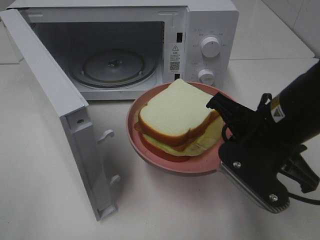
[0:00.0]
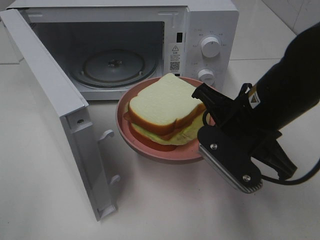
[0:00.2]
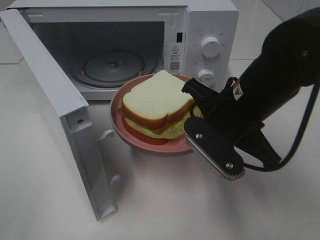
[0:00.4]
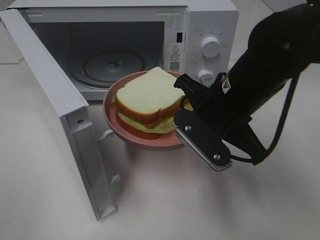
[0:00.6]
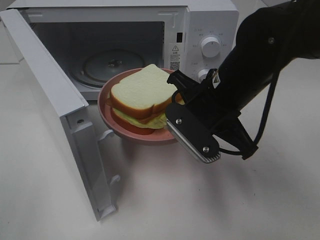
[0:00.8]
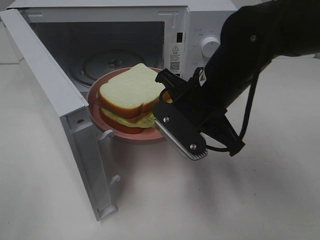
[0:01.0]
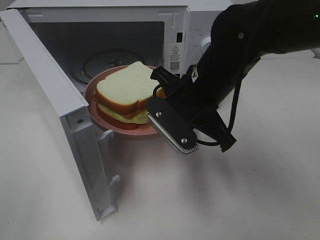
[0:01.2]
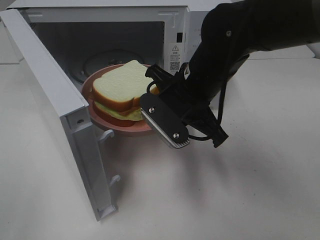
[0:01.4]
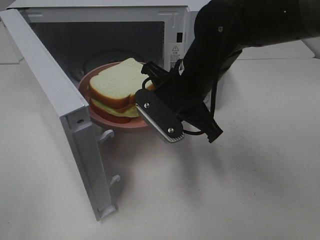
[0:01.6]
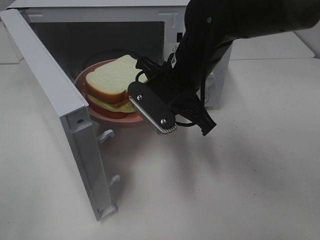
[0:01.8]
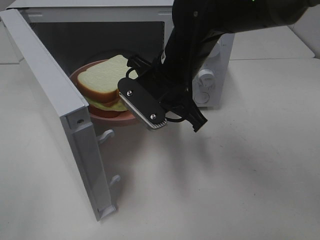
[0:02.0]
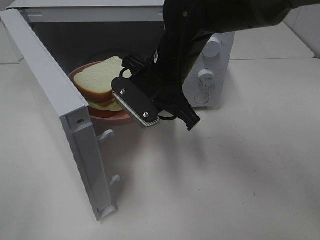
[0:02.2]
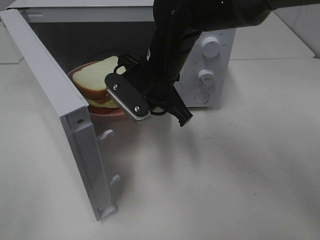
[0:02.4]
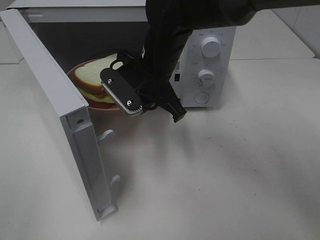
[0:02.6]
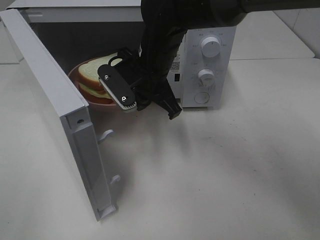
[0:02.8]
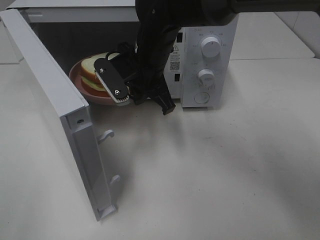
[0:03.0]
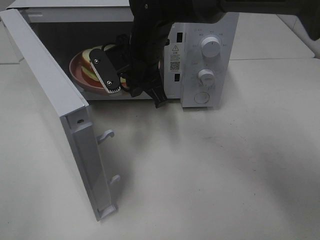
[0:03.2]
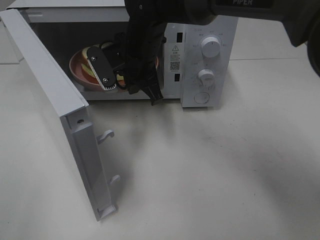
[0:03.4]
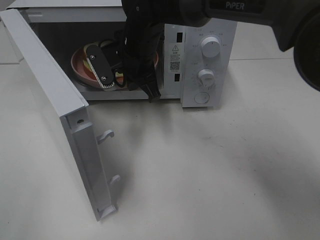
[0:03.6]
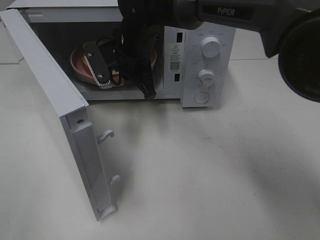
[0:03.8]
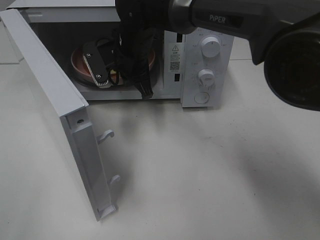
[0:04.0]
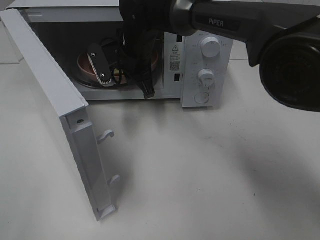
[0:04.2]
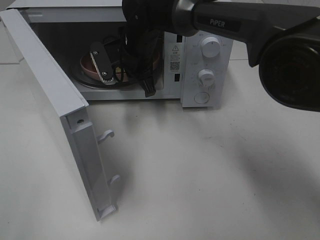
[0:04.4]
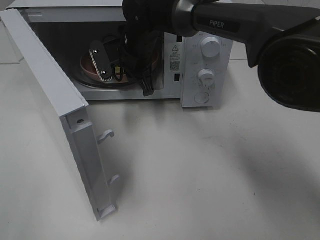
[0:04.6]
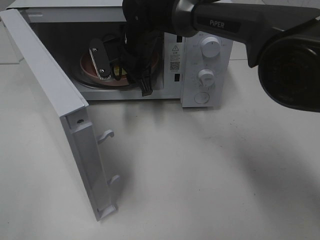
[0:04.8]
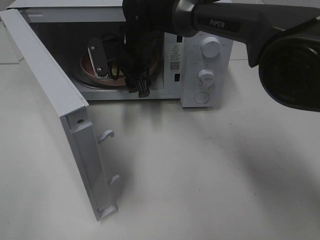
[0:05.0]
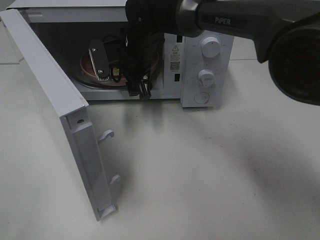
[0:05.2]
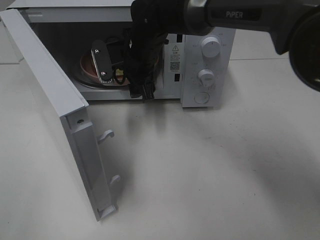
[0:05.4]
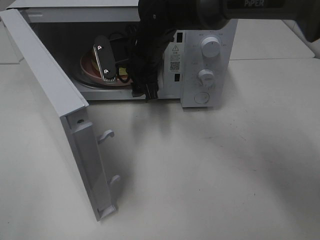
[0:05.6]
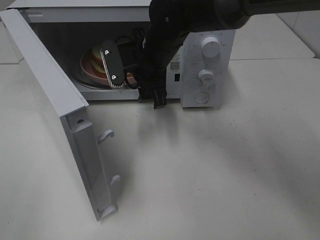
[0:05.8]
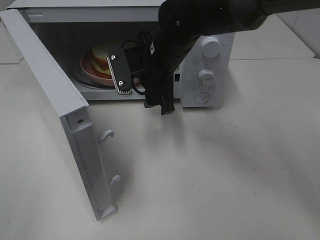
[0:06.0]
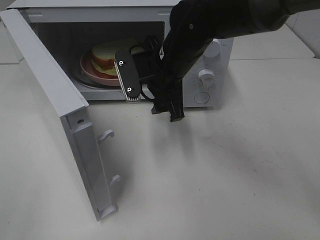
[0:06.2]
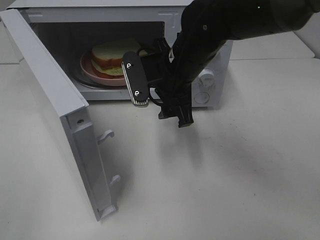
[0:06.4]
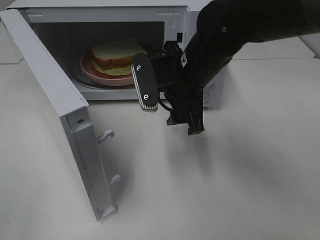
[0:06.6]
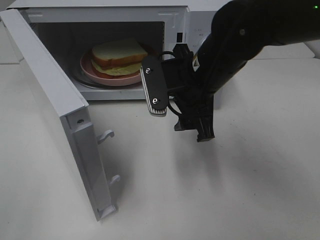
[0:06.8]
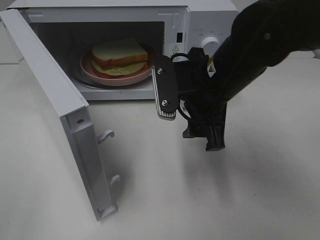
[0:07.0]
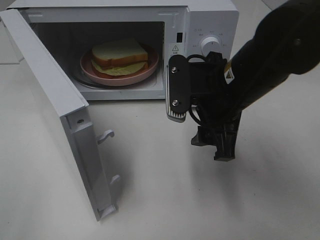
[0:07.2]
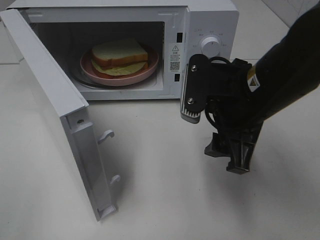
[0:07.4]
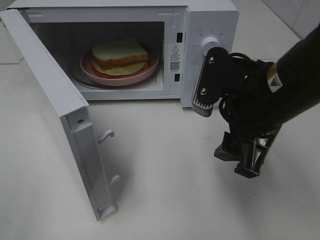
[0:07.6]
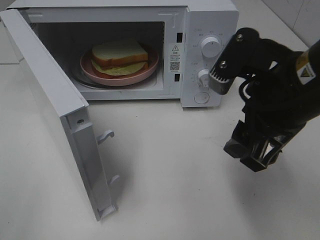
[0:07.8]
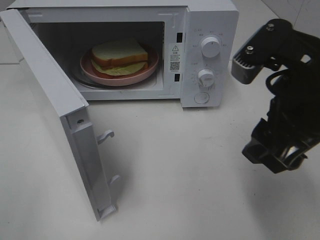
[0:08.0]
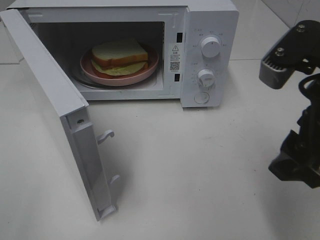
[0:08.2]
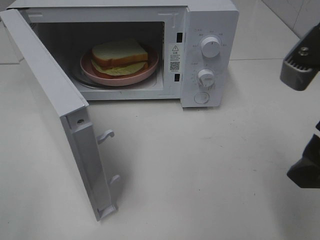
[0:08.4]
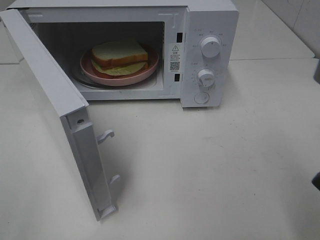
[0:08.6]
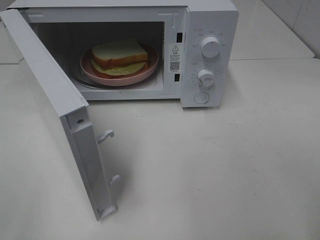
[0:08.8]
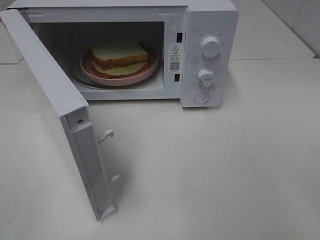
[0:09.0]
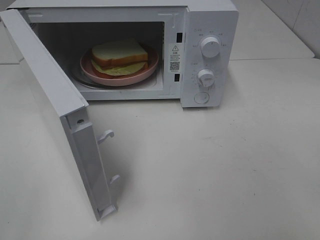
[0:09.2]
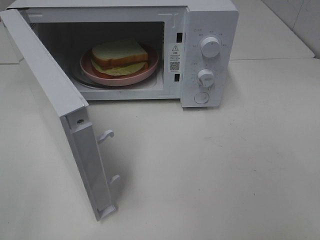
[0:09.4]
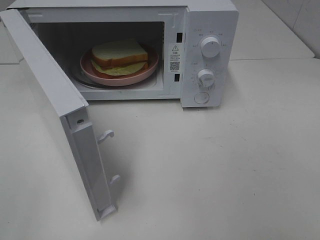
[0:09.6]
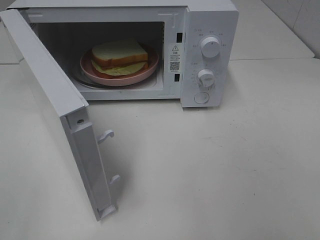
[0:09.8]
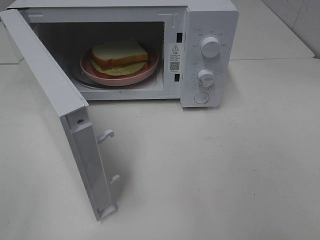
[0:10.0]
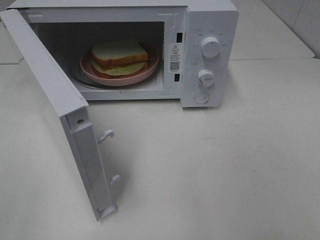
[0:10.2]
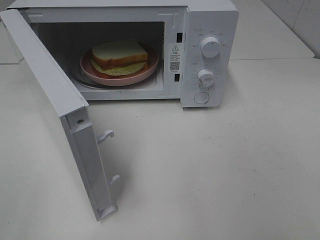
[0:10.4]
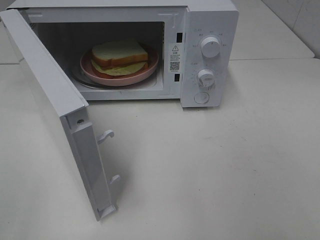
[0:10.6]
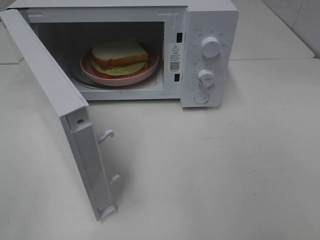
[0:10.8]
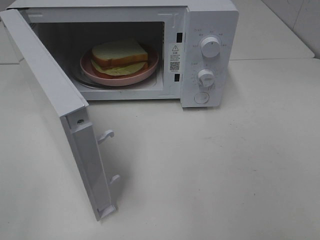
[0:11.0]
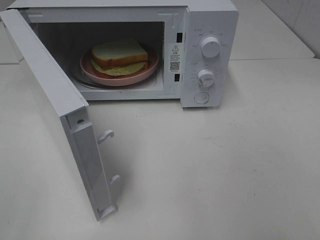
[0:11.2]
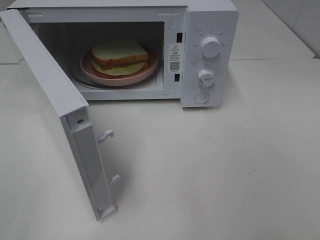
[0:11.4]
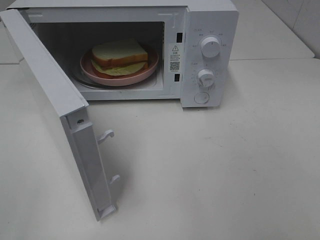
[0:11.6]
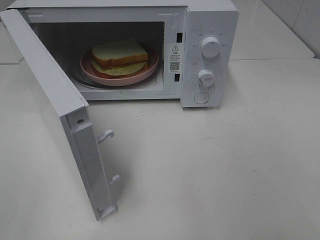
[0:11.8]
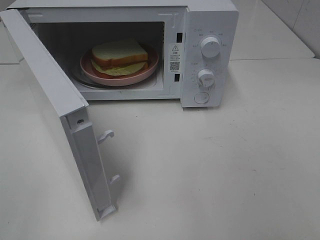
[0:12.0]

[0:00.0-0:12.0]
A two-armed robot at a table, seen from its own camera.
Task of the whole recording: Heat Sandwich.
Step, 0:00.0 to 0:06.0: Right hand: place the plate in the microwave.
0:00.0 to 0:01.6: The right gripper shifts some 15 cm forward and to the left.
0:01.6 to 0:03.0: The right gripper goes some 10 cm forward and to the left.
0:03.0 to 0:04.4: The right gripper travels forward by some 5 cm.
0:04.4 to 0:06.0: The right gripper moves backward, approximately 5 cm, and opens.
0:06.0 to 0:07.6: The right gripper heads backward and to the right, covering about 20 cm.
0:07.6 to 0:09.0: The right gripper goes about 20 cm backward and to the right.
0:10.4 to 0:12.0: Both grippers stay about where they are.

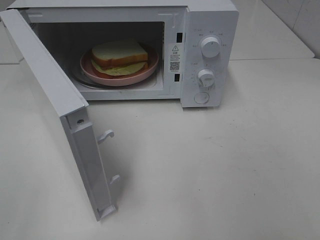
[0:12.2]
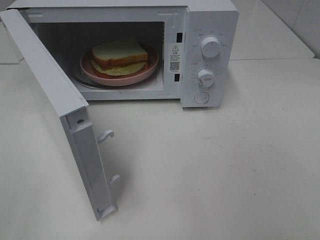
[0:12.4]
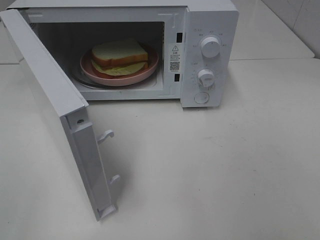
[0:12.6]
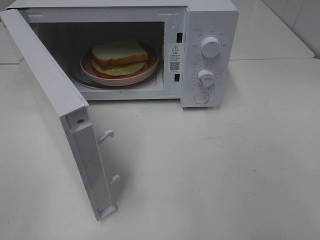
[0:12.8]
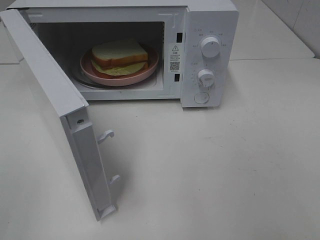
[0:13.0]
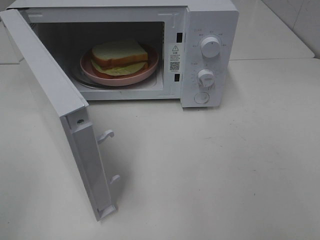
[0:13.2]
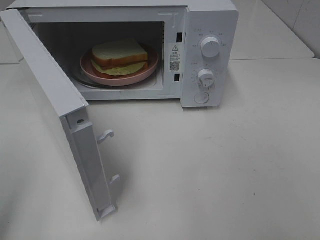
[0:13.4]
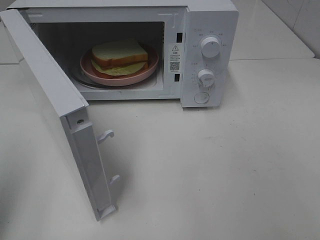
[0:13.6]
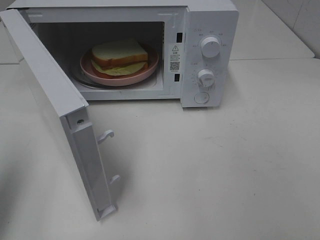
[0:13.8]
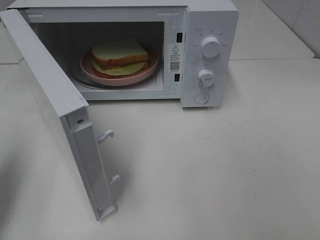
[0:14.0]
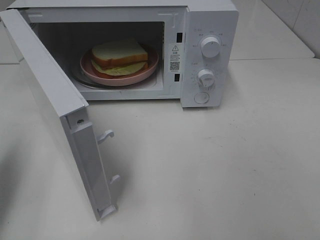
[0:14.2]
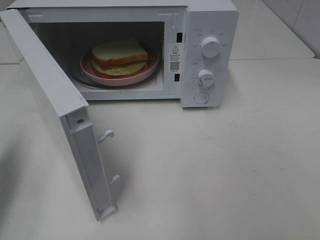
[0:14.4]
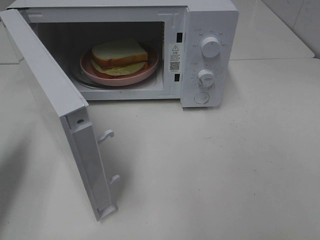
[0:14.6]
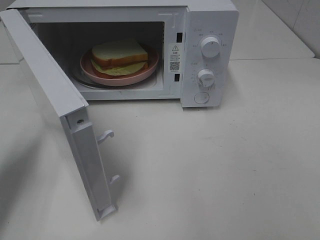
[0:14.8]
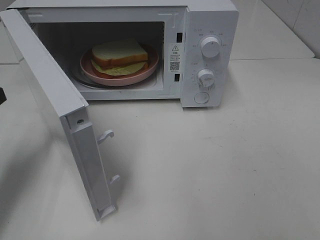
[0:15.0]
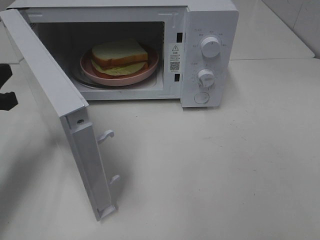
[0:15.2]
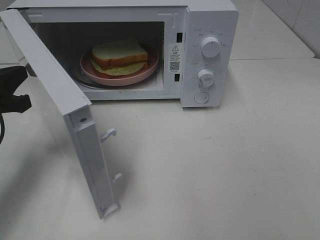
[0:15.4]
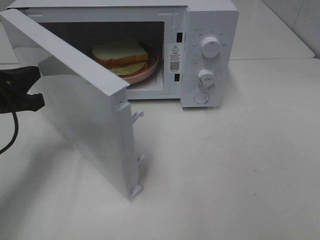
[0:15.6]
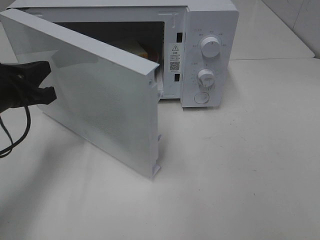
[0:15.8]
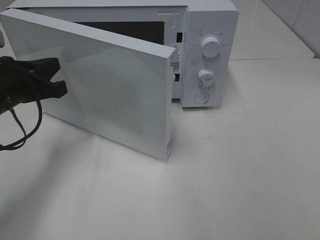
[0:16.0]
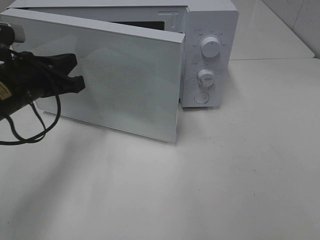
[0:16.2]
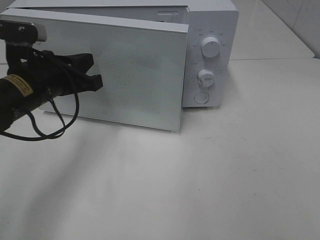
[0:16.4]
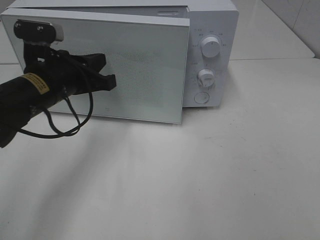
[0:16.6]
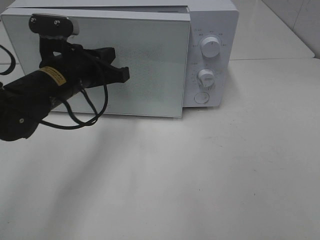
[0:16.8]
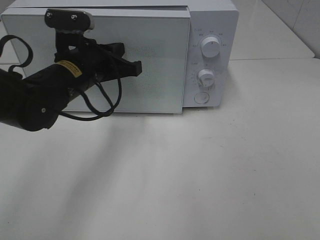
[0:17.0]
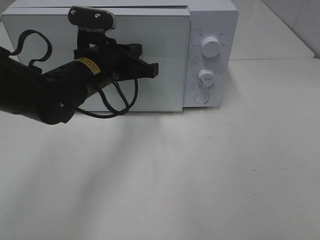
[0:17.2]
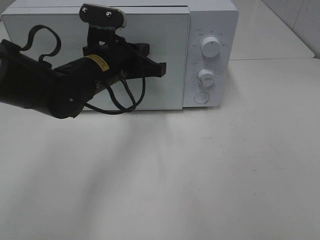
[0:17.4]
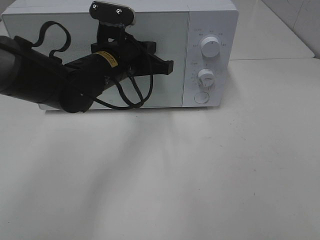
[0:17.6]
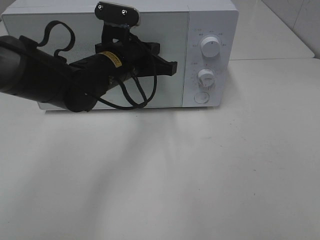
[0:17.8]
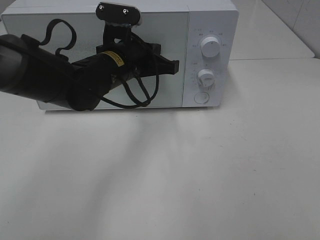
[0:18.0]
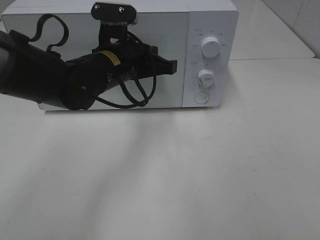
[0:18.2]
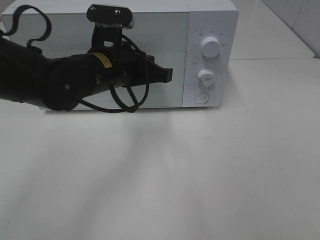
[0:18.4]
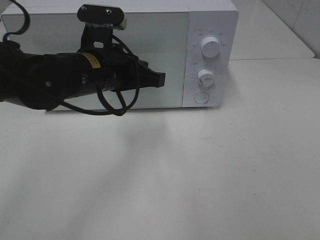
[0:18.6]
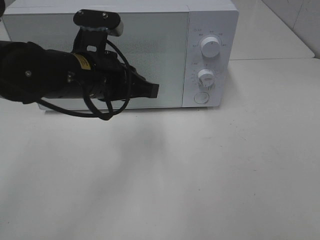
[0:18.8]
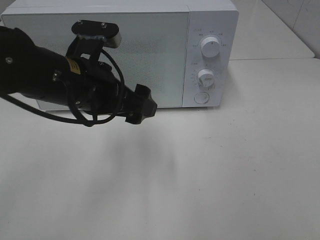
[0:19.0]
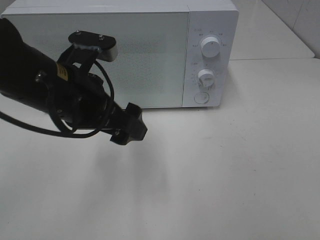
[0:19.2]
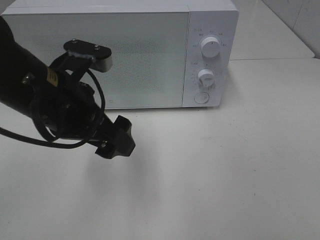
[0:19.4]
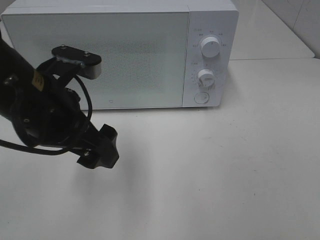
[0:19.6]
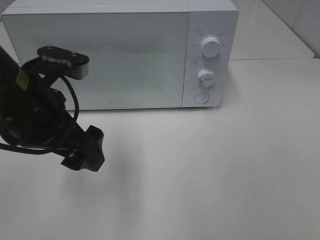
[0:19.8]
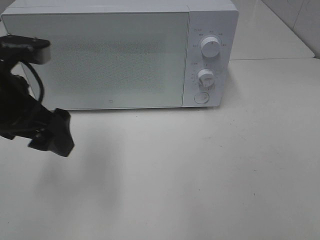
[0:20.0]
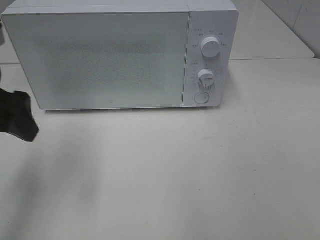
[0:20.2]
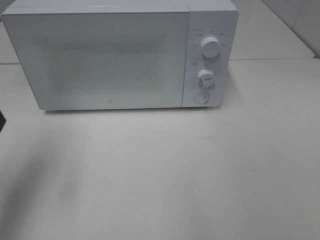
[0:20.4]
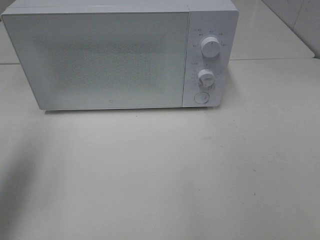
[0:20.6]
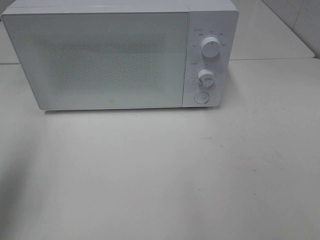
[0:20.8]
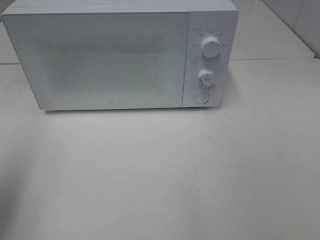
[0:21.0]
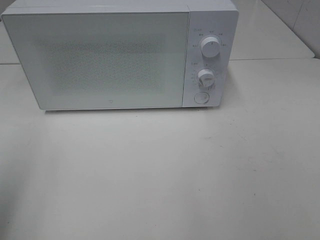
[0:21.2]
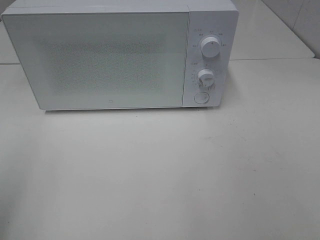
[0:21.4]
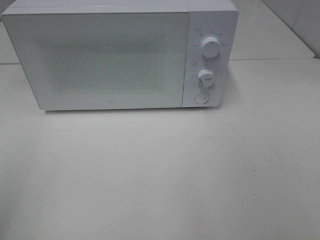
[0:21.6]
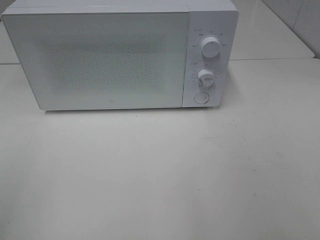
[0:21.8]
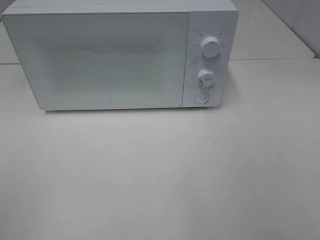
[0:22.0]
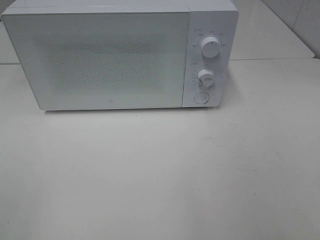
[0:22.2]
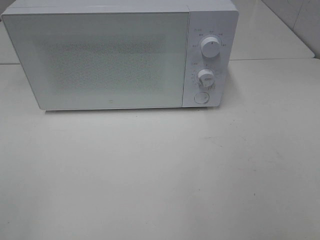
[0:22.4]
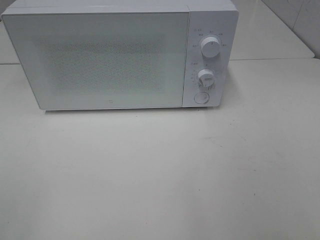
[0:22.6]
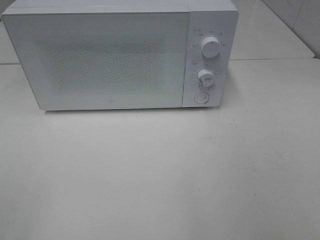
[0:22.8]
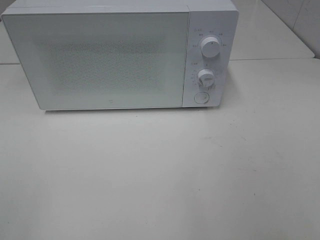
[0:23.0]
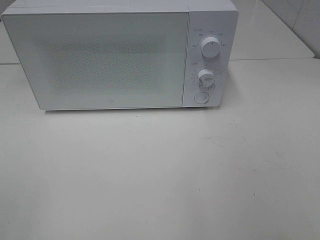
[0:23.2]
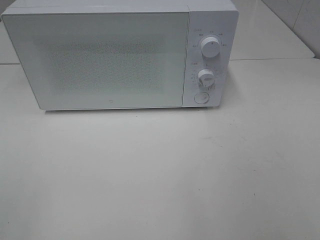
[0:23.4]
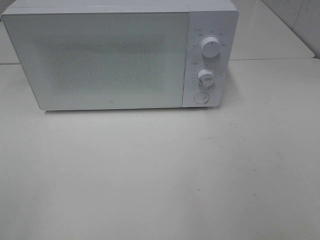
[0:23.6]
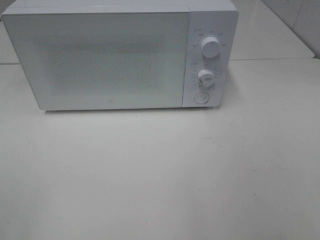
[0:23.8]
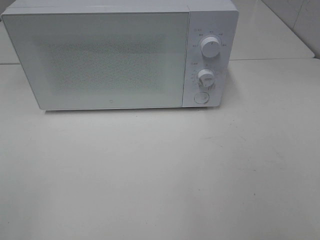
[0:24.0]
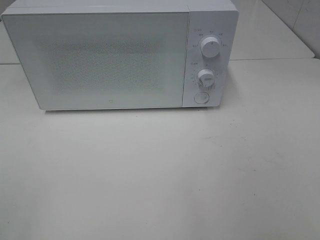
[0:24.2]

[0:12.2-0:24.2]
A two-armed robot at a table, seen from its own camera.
Task of the whole recording: Heat Sandwich.
Step, 0:12.2 to 0:18.8: Left hand: close the microwave door.
0:12.2 to 0:13.8: The left gripper goes approximately 15 cm forward, and closes its fingers.
0:13.8 to 0:15.2: The left gripper goes about 15 cm downward and forward.
0:15.2 to 0:16.6: The left gripper goes some 15 cm to the right and forward.
0:16.6 to 0:18.2: The left gripper heads to the right, covering roughly 10 cm.
0:18.2 to 0:19.8: The left gripper moves backward, to the left and upward, about 15 cm, and opens.
0:19.8 to 0:21.2: The left gripper moves to the left, backward and upward, approximately 20 cm.
0:21.2 to 0:22.6: The left gripper shifts about 10 cm backward.
0:22.6 to 0:24.2: Both grippers stay put.
